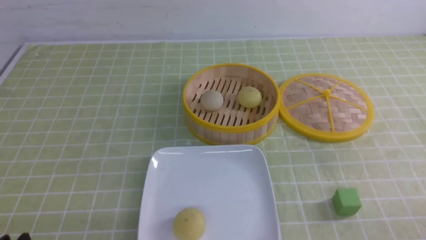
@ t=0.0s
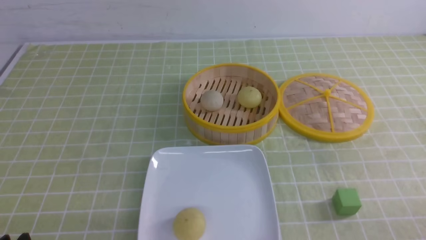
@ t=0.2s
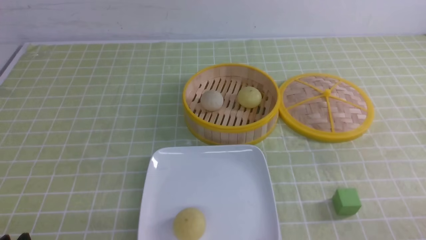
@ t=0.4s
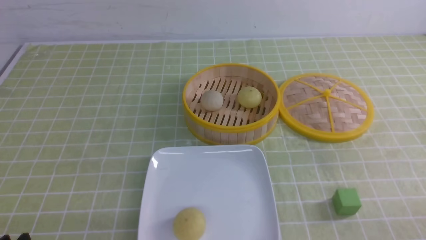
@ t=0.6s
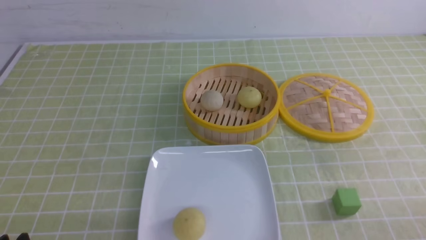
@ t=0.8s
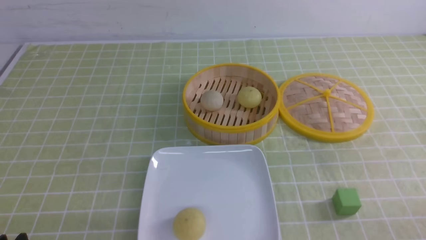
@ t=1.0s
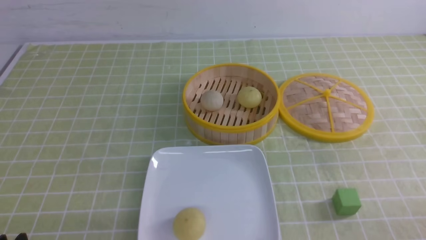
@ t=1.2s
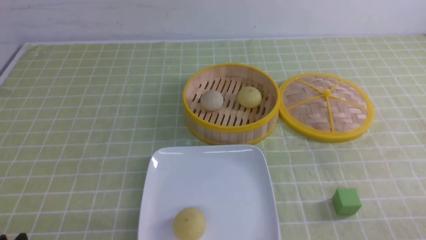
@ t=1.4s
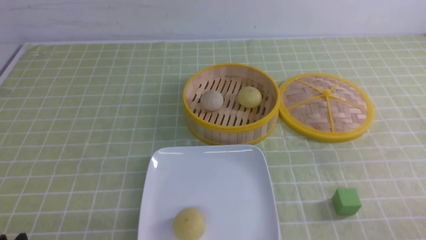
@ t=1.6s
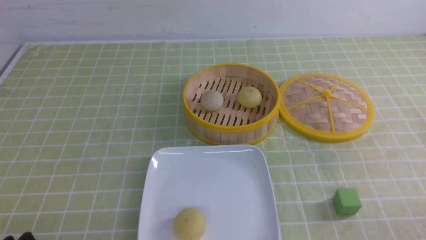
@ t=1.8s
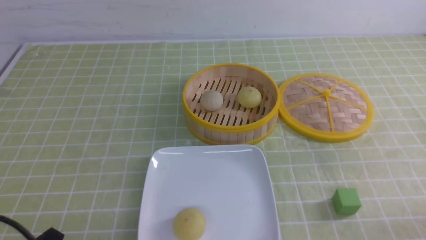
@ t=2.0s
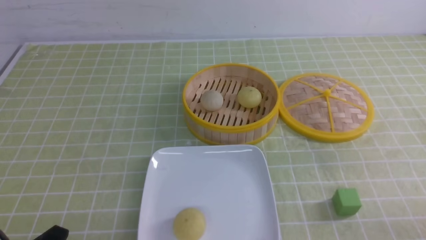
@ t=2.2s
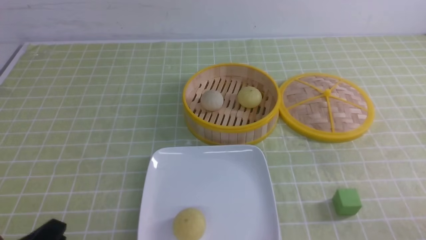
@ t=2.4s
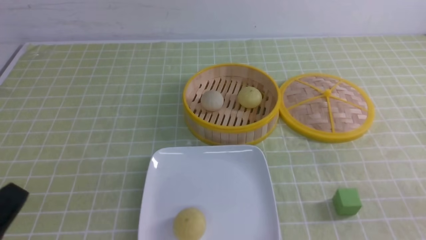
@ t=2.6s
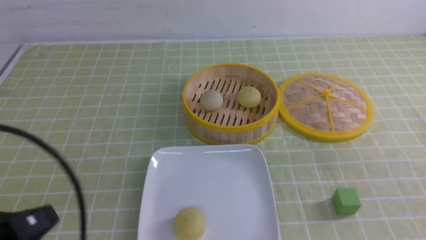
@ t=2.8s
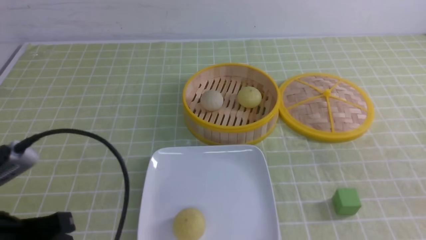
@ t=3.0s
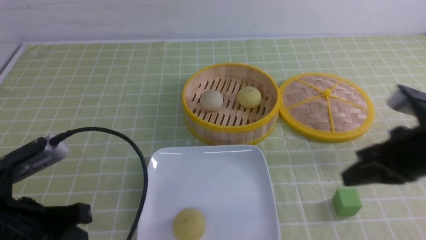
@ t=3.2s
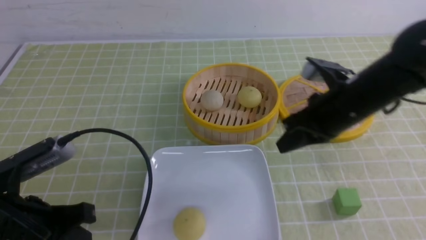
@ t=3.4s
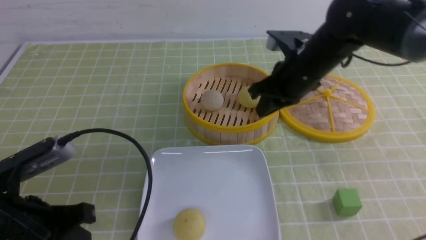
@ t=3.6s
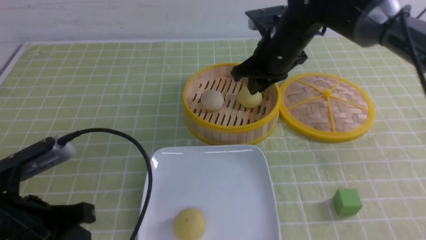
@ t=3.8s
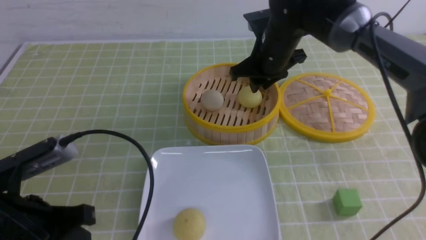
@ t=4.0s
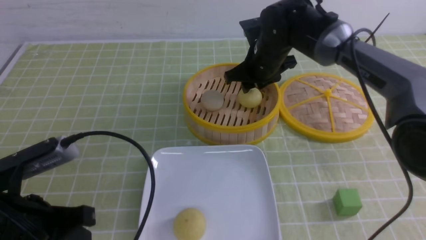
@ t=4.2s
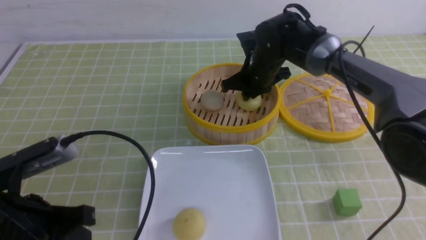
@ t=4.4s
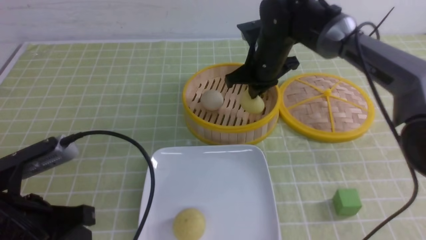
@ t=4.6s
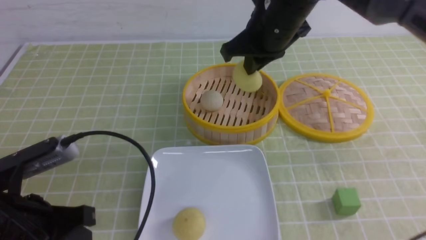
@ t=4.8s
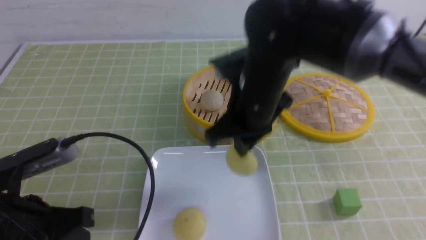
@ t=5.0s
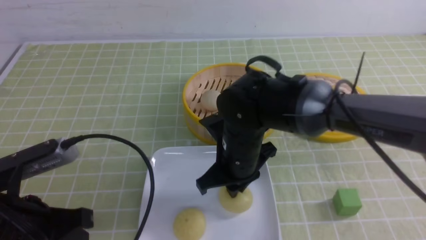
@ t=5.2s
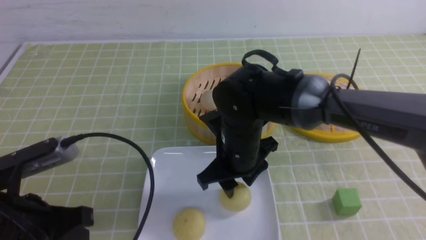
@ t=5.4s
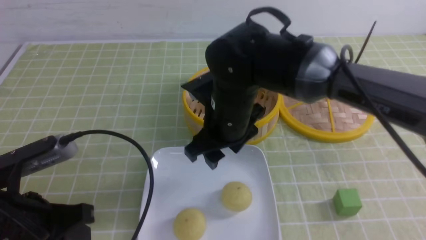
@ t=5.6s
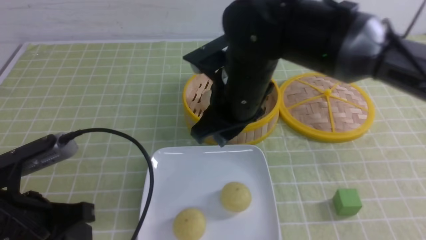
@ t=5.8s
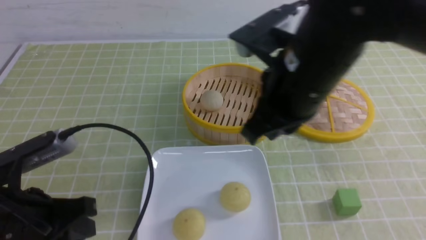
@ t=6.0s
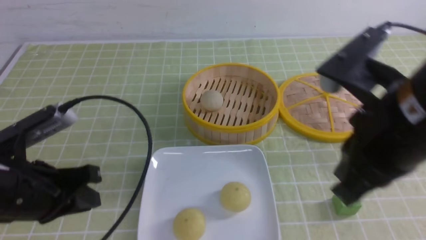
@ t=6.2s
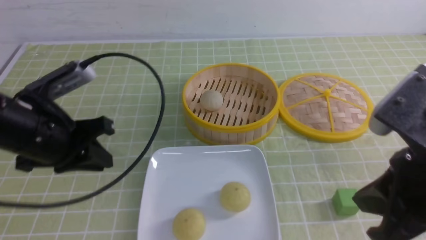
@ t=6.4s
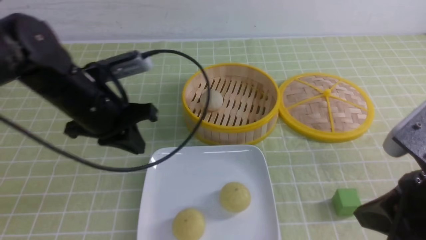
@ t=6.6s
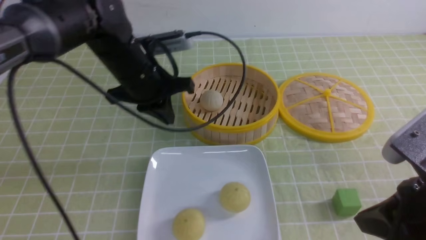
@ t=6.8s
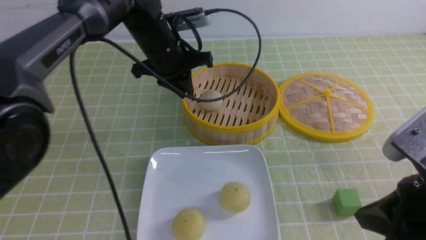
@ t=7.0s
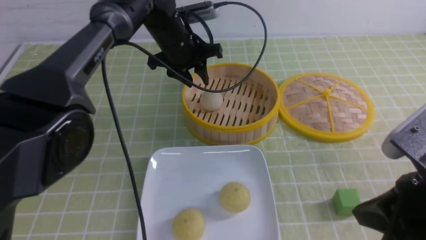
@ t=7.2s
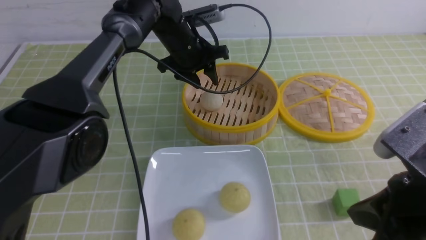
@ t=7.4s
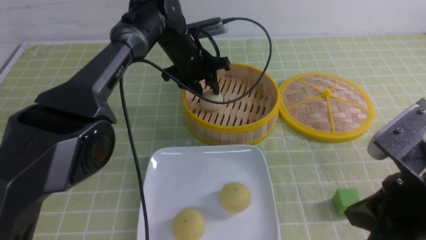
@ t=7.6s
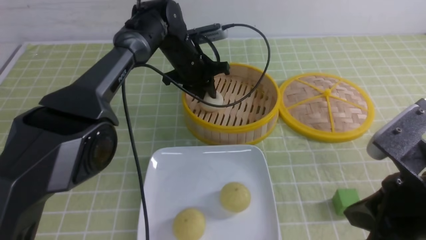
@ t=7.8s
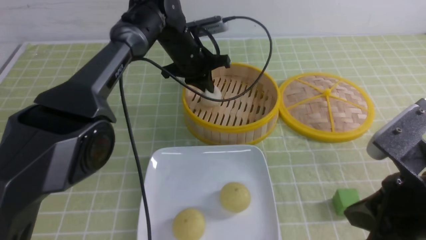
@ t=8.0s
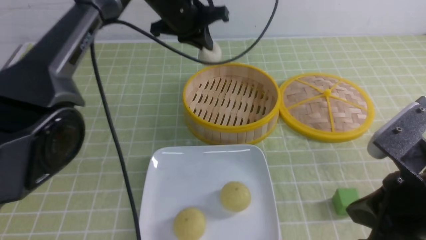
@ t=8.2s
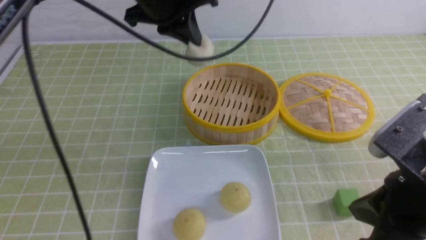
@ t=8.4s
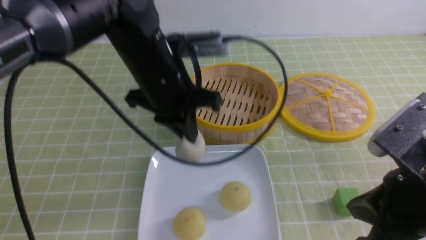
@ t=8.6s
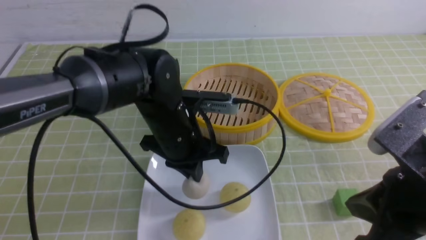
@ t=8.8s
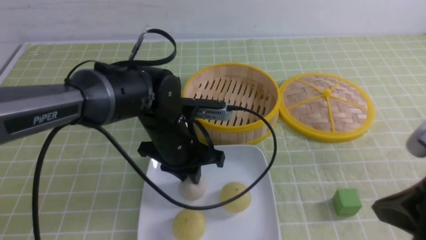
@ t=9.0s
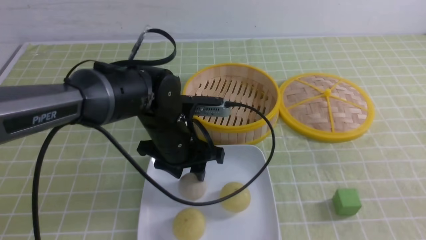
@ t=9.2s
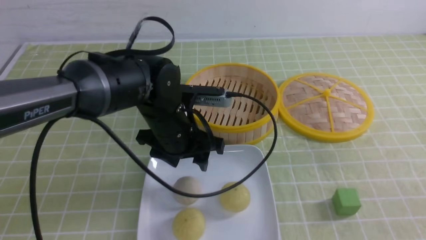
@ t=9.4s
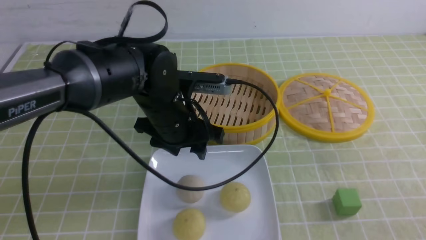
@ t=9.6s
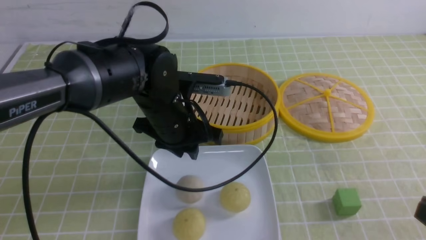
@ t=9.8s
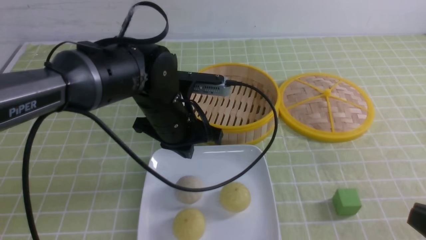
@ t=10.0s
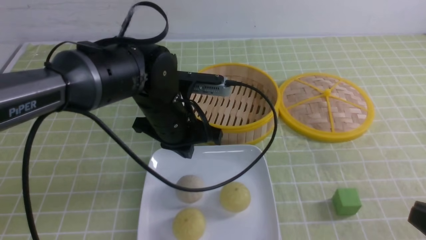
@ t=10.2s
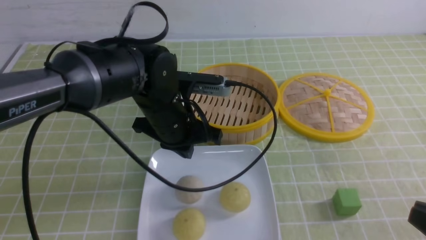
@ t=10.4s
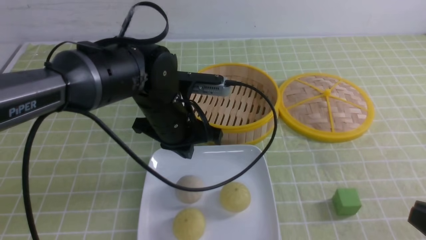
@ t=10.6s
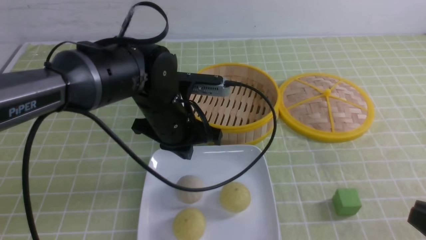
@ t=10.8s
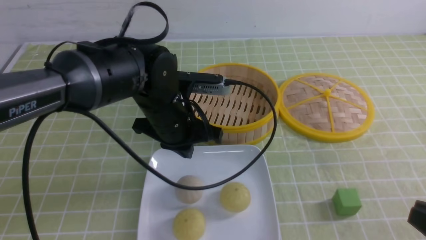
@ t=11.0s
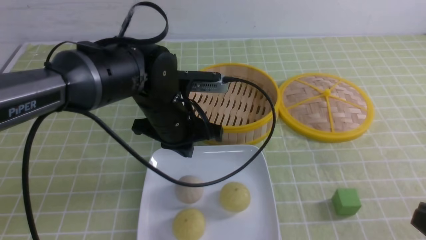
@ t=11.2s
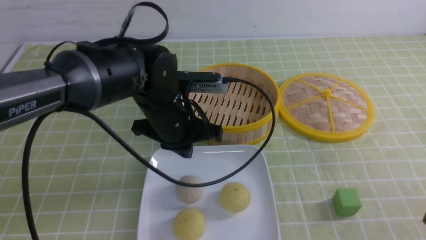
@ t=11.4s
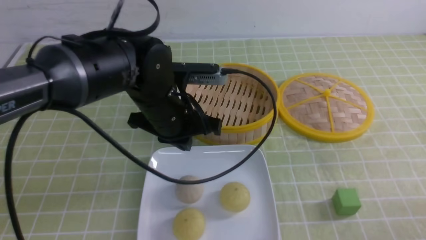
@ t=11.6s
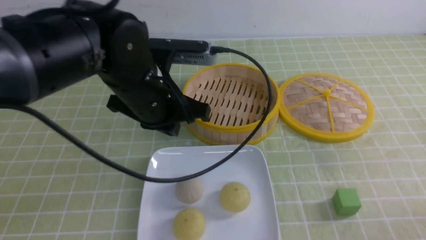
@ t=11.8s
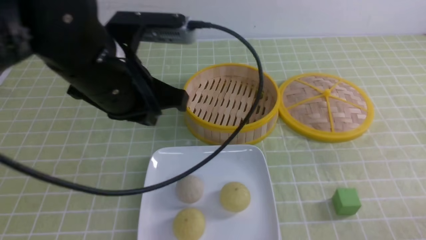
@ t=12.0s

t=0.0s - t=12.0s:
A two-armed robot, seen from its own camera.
Step, t=0.0s - t=4.4s: use the right arm to grab the steamed stuffed bun that is closest to it.
Step, t=4.6s - t=5.2s: use the right arm to put the steamed stuffed bun into the plate.
Step, t=5.4s - t=7.8s: use the left arm to grab the steamed stuffed bun that is closest to it.
Step, t=8.0s - t=9.2s: use the left arm to put the steamed stuffed bun into the plate.
t=0.0s - t=1.6s: Neither gripper changes place.
t=1.6s - t=3.0s: The left gripper heads upward and forward, covering roughly 10 cm, and closes.
t=3.0s - t=4.4s: The right gripper heads forward and to the left, covering roughly 35 cm, and opens its fingers.
t=4.4s - t=6.0s: The right gripper heads backward and upward, covering approximately 25 cm, and opens and closes again.
t=6.0s - t=7.6s: The right gripper moves to the right, backward and downward, some 15 cm. The left gripper goes approximately 40 cm forward and to the right, and opens.
t=7.6s - t=9.0s: The left gripper heads backward, covering some 20 cm, and closes and opens again. Meanwhile the right gripper ends up approximately 5 cm from where it was.
t=9.0s - t=10.4s: The left gripper closes its fingers, while the right gripper goes about 5 cm backward.
t=10.4s - t=12.0s: The left gripper goes approximately 15 cm upward, backward and to the left. The right gripper travels downward by about 10 cm.

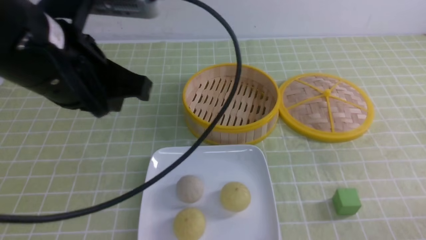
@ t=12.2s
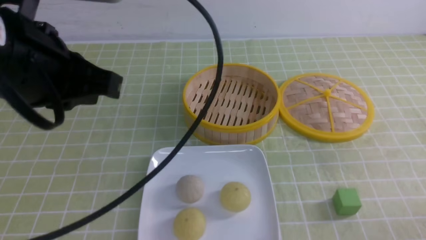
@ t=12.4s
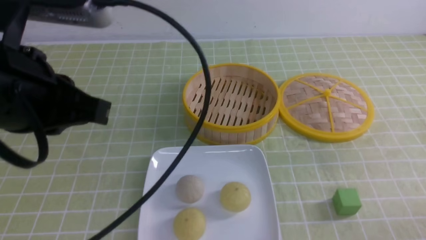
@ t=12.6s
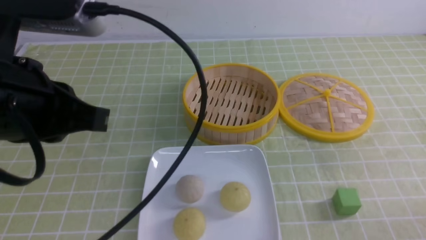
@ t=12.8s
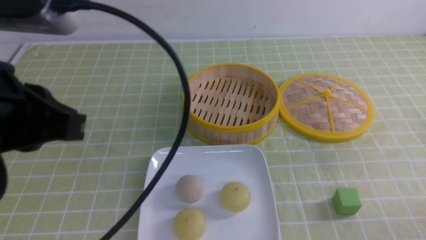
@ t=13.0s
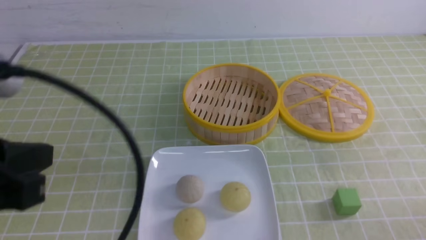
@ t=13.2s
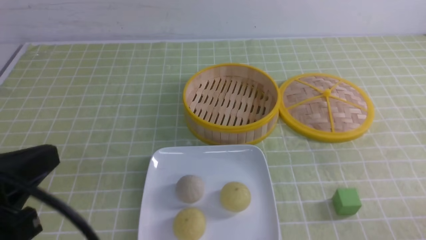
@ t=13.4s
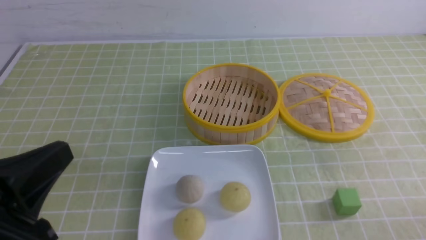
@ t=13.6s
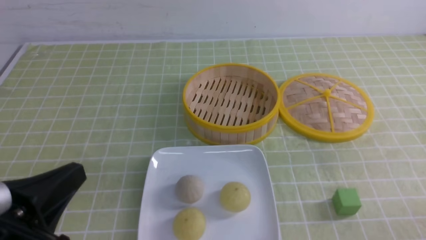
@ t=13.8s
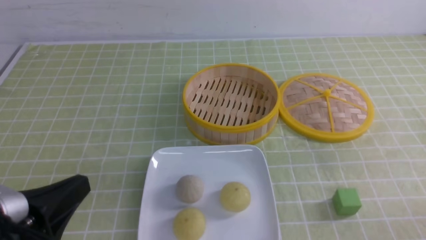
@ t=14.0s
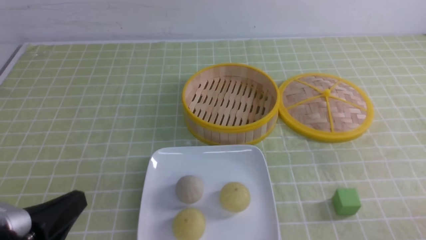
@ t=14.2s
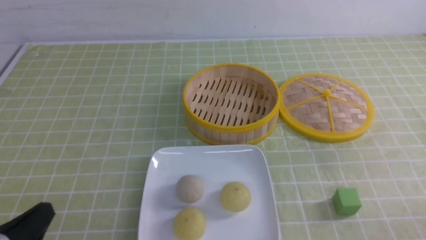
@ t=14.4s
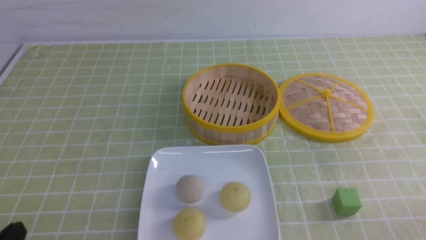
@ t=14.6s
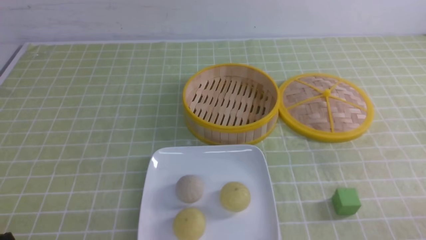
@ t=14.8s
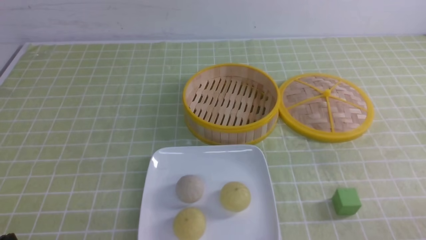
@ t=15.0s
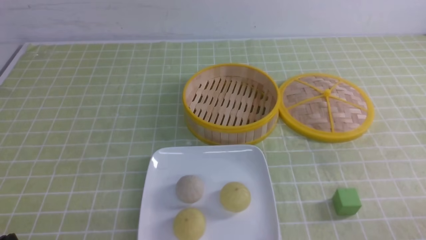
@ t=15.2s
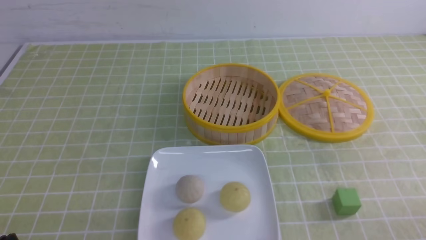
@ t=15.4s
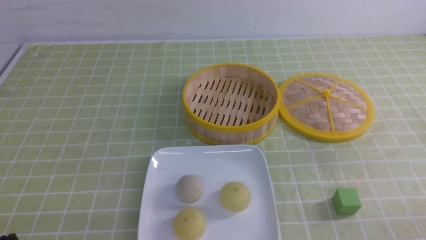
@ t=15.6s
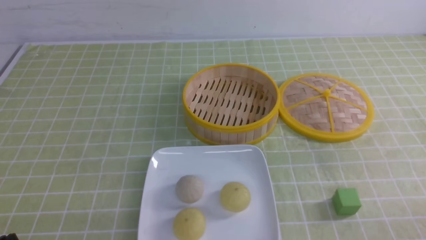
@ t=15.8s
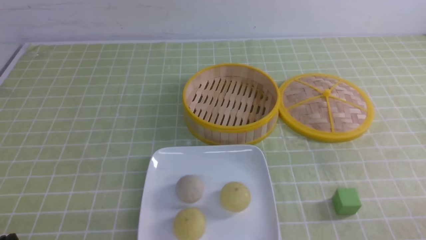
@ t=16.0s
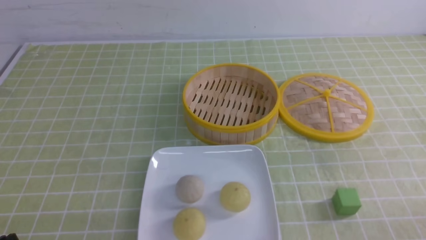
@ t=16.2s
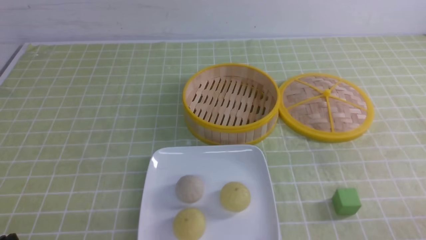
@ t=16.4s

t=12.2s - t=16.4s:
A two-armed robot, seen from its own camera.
t=12.2s - t=13.6s: The left gripper shifts some 20 cm backward, downward and to the left.
t=13.6s - t=15.0s: The left gripper goes about 15 cm downward.
t=15.0s - t=16.4s: Both grippers stay put.
